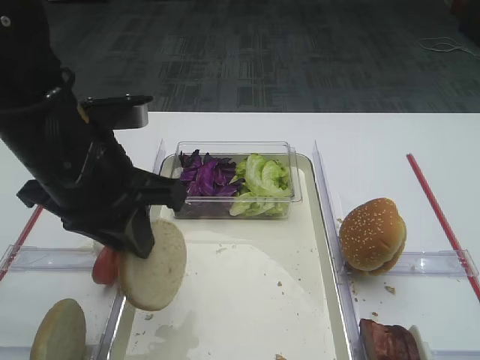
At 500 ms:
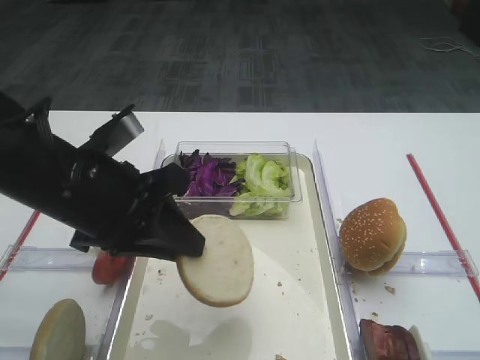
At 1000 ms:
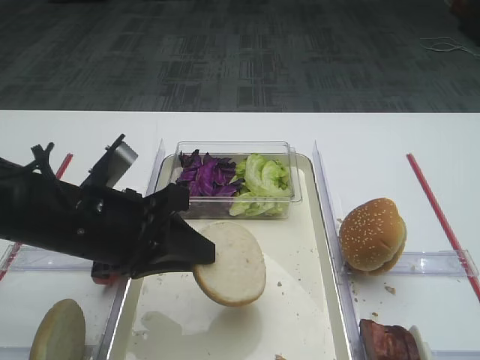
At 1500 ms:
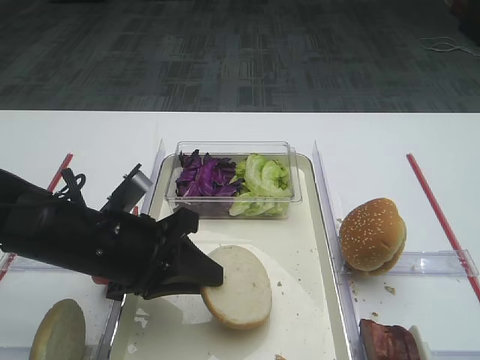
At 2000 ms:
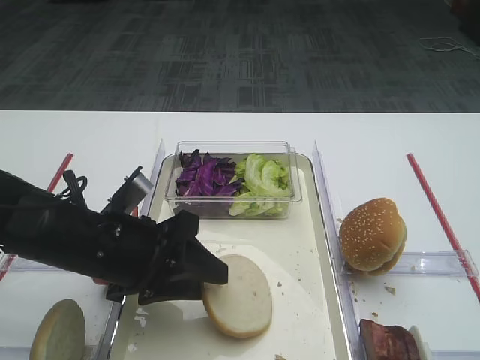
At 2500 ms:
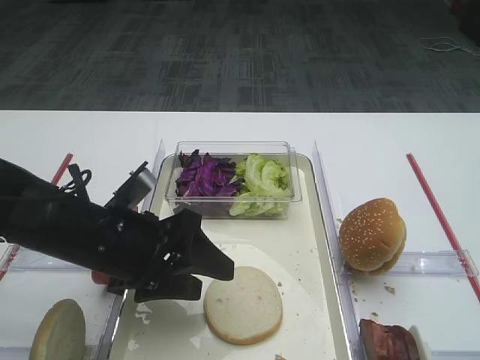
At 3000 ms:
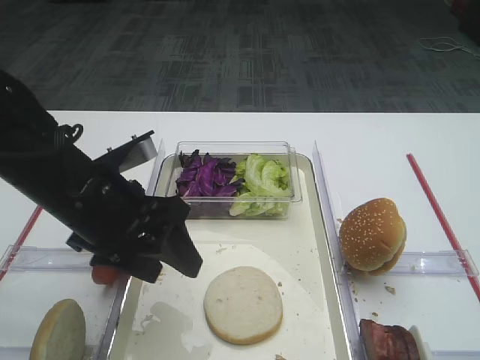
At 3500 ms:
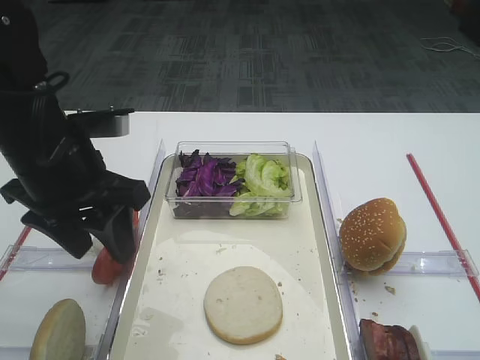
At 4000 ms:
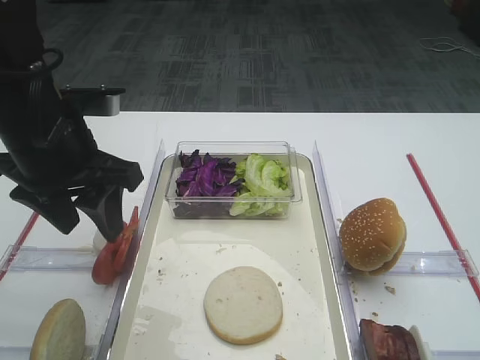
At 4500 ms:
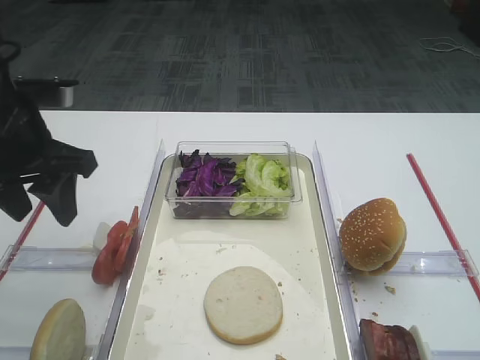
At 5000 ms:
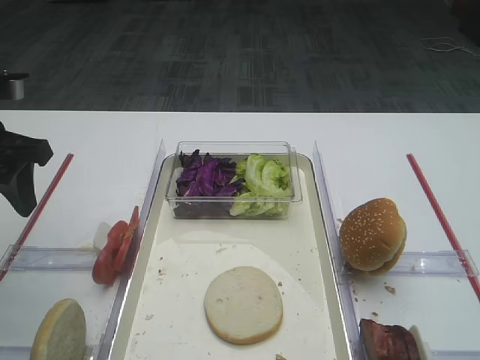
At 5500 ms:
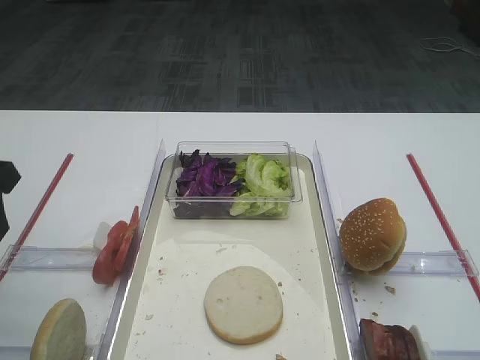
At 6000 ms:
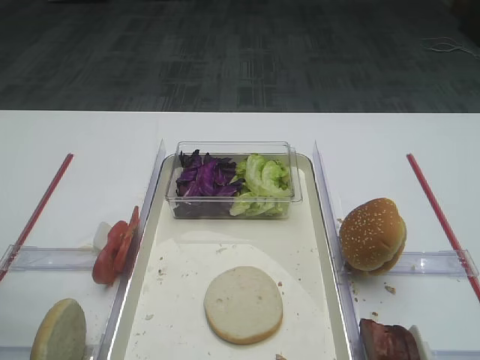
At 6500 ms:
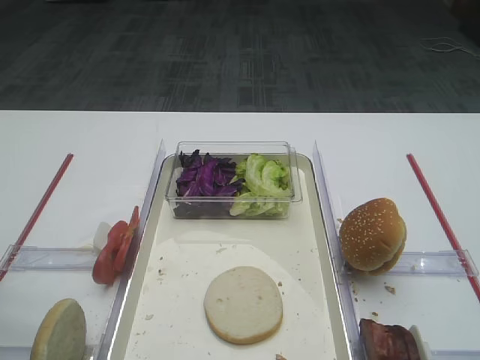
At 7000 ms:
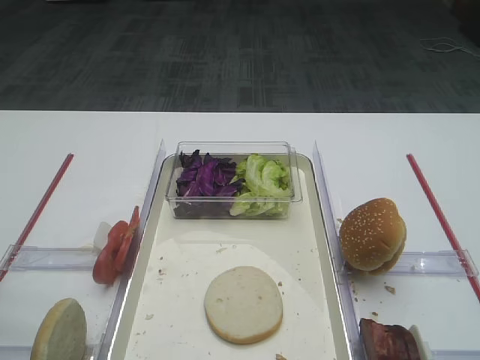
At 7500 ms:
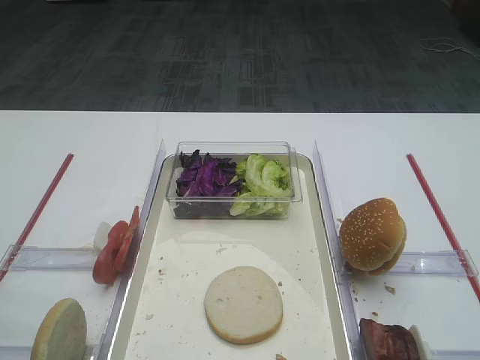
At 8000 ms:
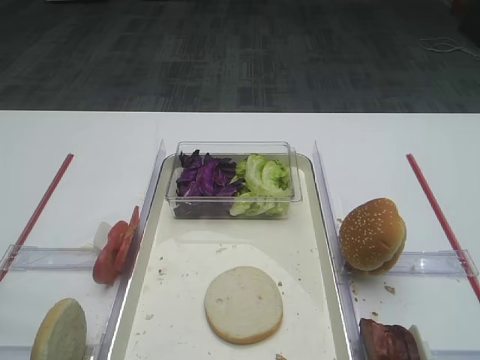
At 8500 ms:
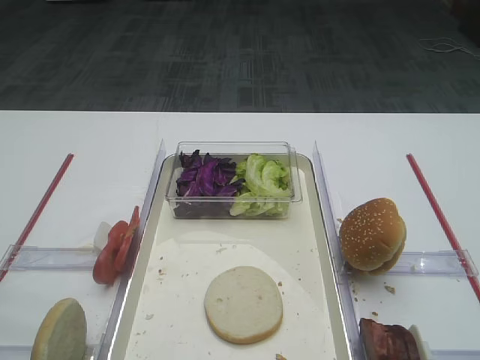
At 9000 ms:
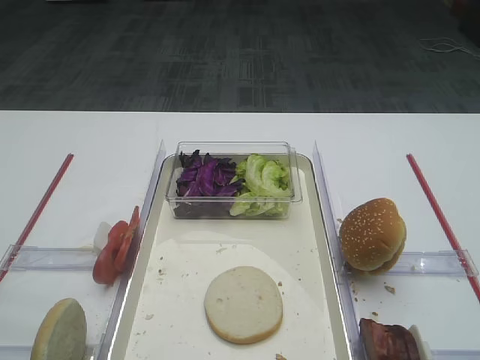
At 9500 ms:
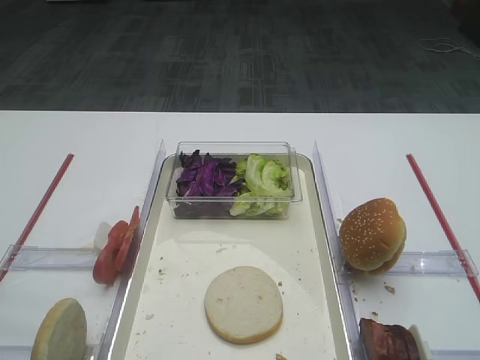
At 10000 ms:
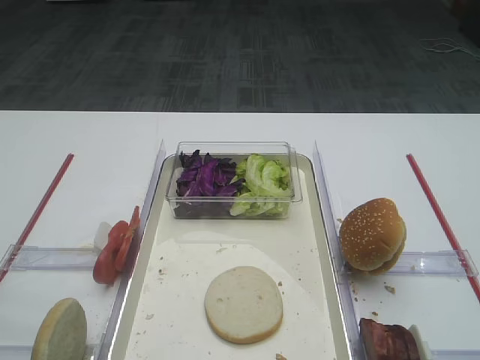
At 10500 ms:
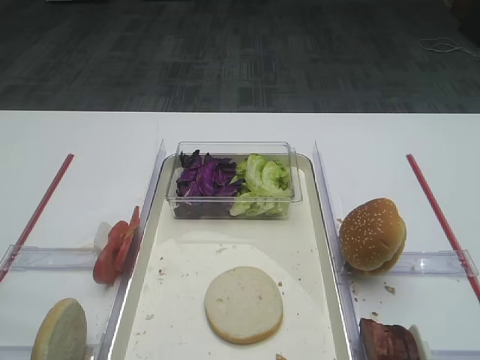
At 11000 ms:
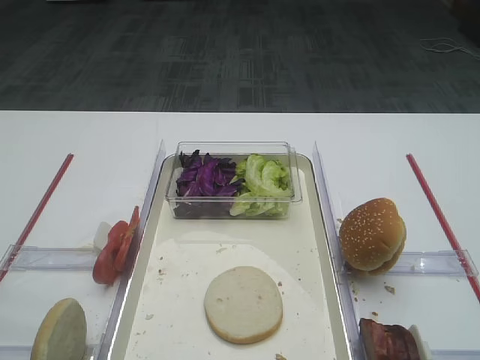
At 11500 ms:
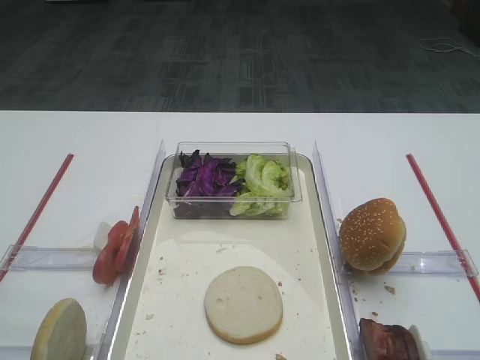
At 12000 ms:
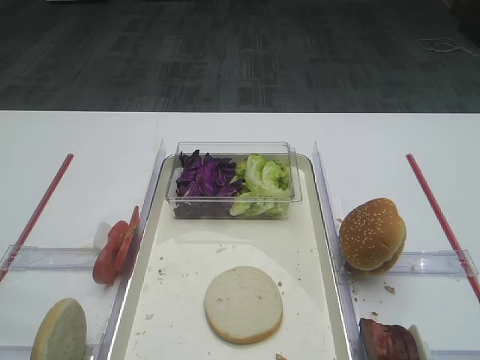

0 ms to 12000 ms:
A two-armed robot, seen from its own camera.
Step, 0 ms to 3000 ms: Place the bread slice on the tray with the left gripper.
0 ms to 2000 ms: The left gripper moves downward, some 10 cm, and opens its fingers.
2000 ms to 4000 ms: The left gripper heads upward, covering about 10 cm.
4000 ms to 6000 ms: The left gripper moves to the left and backward, about 15 cm.
10000 ms to 12000 ms: Both grippers stay put.

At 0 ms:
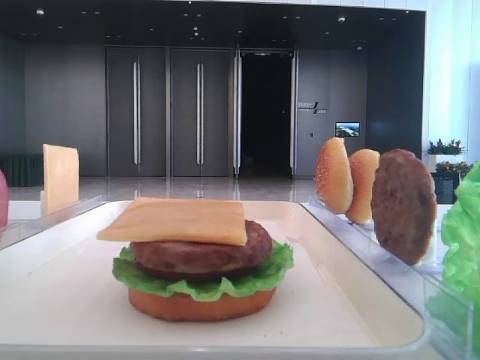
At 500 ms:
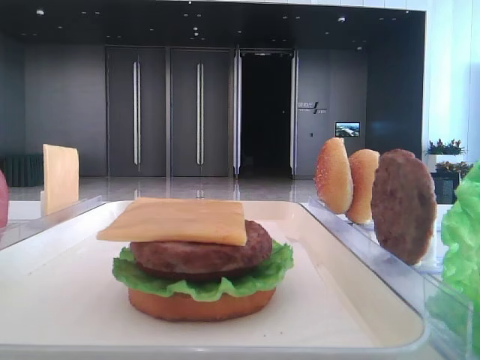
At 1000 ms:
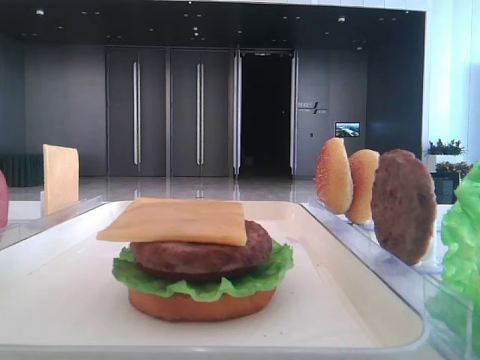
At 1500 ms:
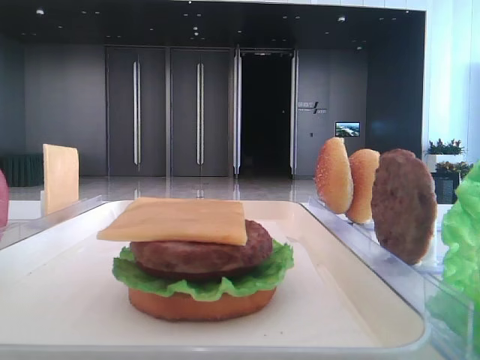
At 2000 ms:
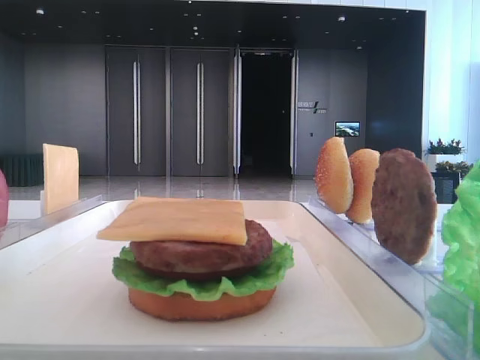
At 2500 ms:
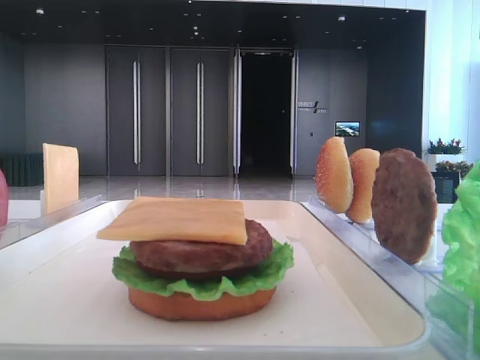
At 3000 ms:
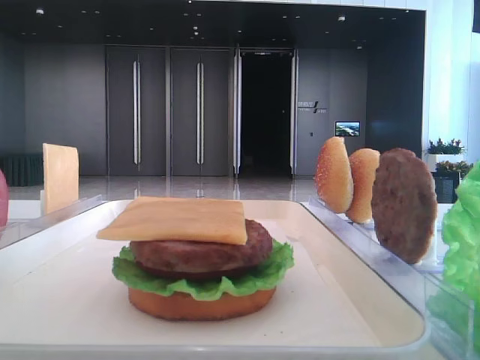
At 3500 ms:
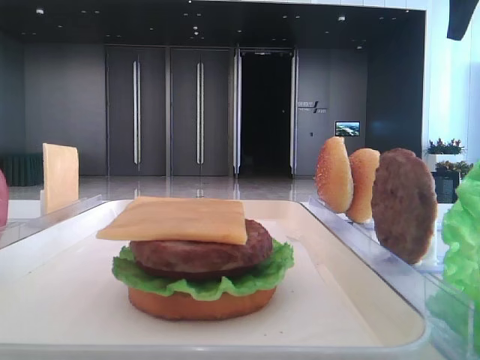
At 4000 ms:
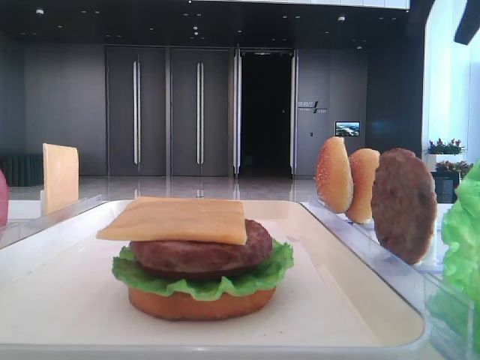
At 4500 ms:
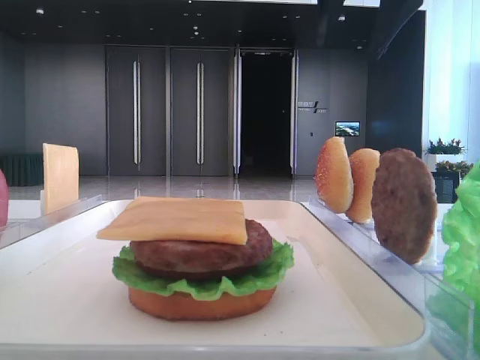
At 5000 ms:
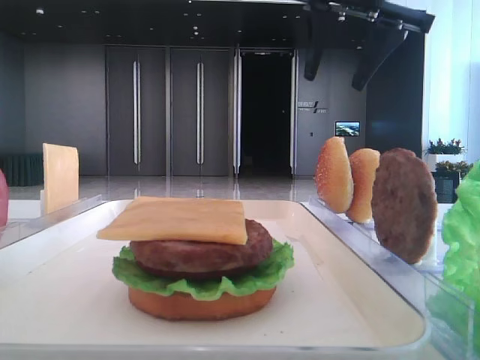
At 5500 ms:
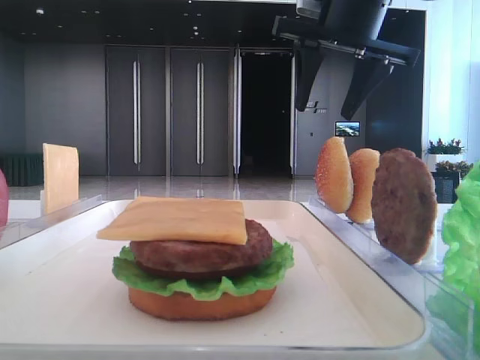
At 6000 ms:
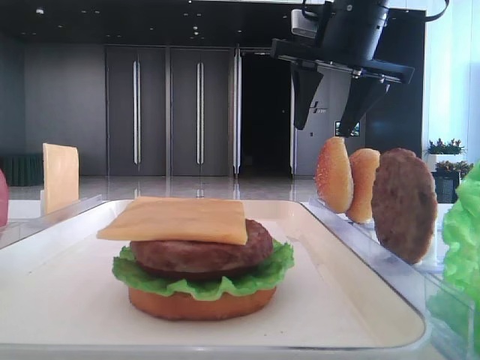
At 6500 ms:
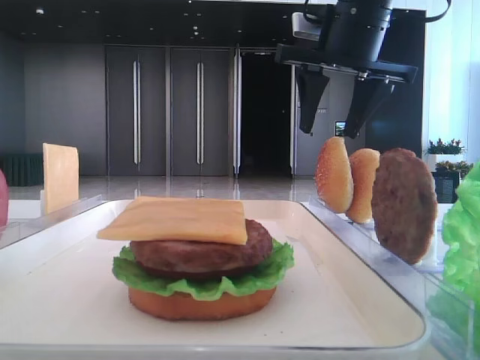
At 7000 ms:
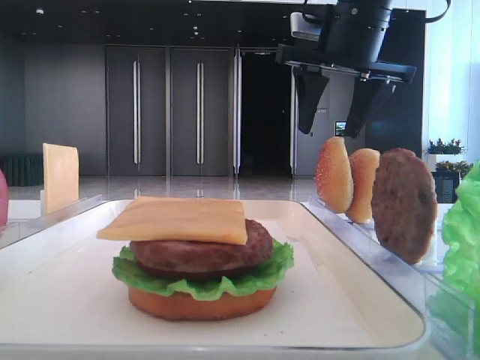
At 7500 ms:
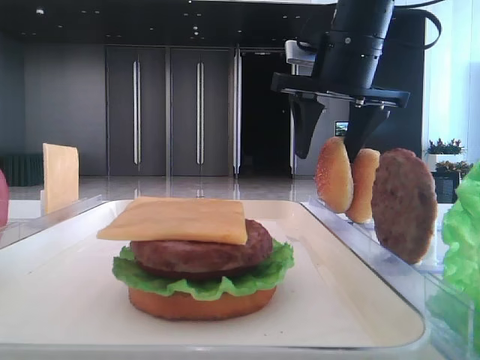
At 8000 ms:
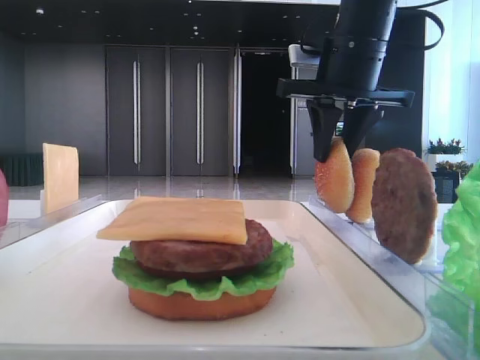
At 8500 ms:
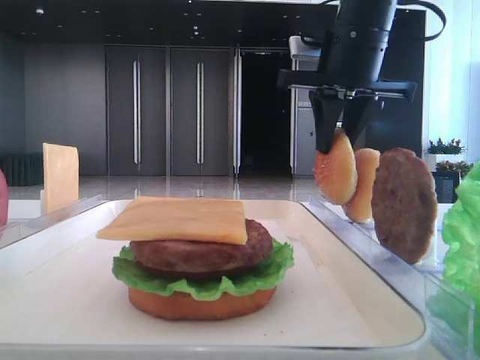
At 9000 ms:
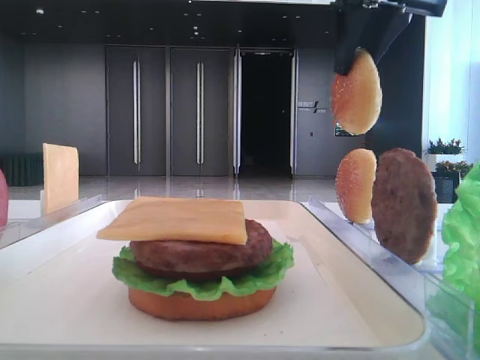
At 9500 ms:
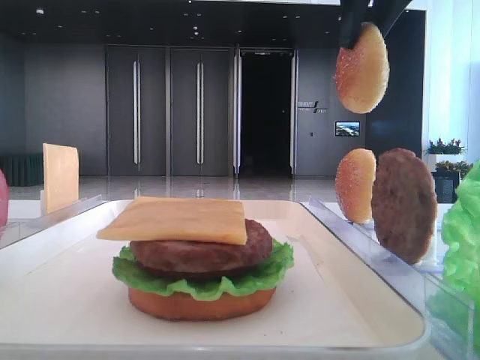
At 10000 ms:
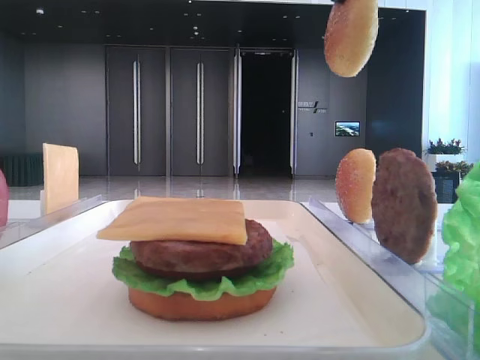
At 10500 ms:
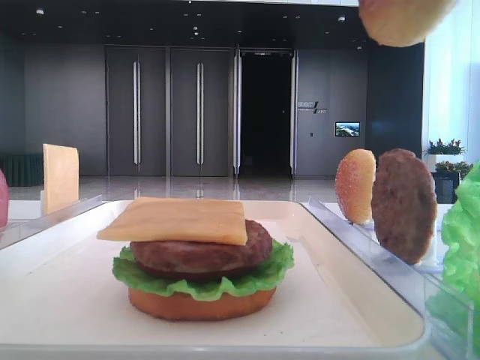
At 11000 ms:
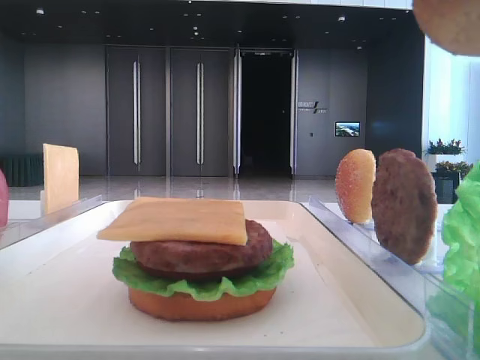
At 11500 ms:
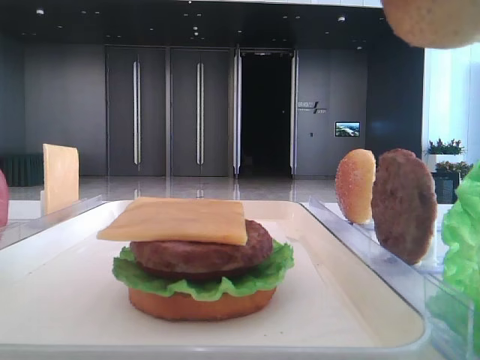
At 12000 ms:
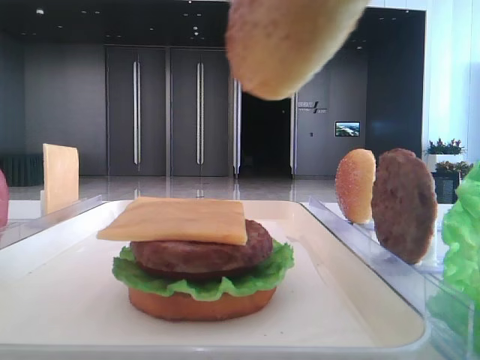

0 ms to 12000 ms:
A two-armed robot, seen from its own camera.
Step, 0 ms to 8000 ms: Pick up the top bread slice with the right hand.
2000 ms to 4000 ms: The right gripper shifts approximately 15 cm forward and to the left.
4000 ms to 6000 ms: The right gripper heads to the left and downward, covering roughly 15 cm.
6000 ms to 8000 ms: The right gripper closes its fingers.
8000 ms to 10000 ms: The right gripper travels upward and backward by some 20 cm.
10000 ms to 12000 ms: The right gripper heads backward, covering roughly 20 cm.

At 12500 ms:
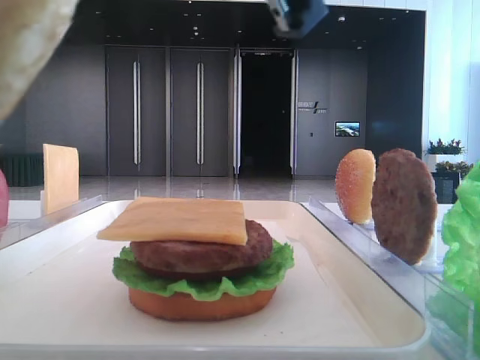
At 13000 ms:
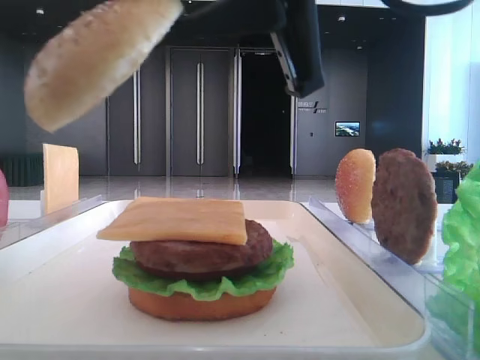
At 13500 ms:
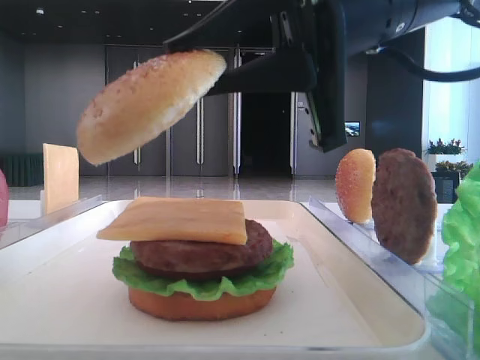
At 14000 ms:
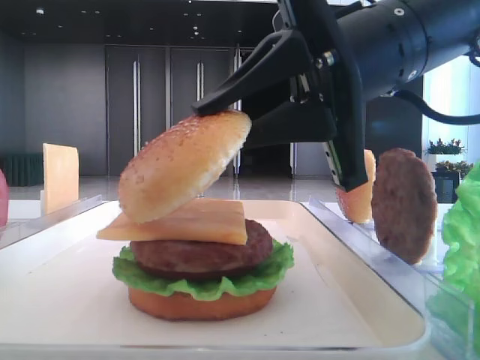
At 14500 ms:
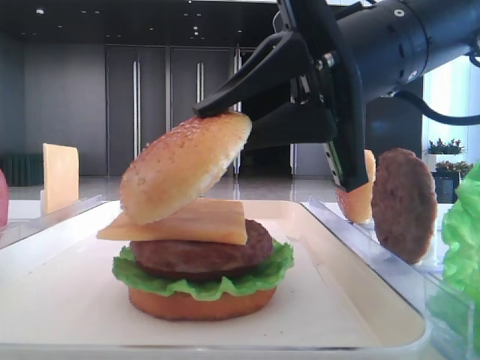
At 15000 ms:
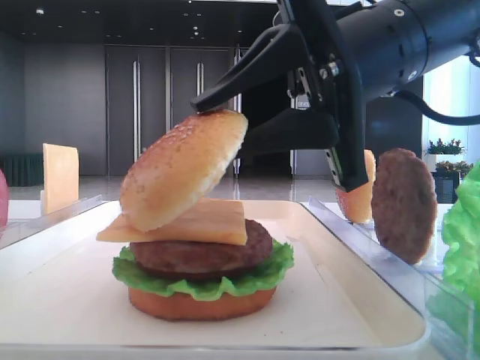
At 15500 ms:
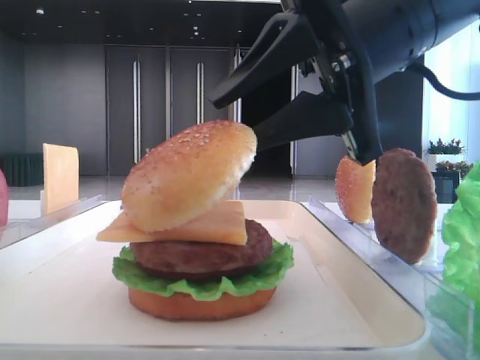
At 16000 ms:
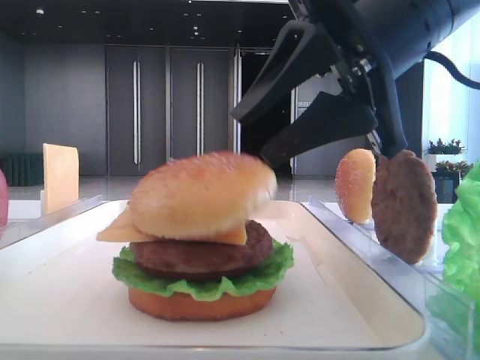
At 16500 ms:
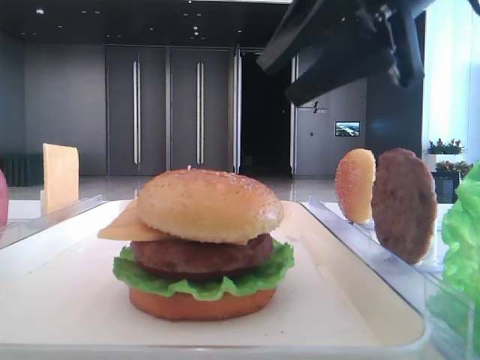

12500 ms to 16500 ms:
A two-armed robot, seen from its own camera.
Step, 12500 ms to 15500 ms: Place the top bread slice on the cheese with the right hand.
12500 ms to 14500 ms: The right gripper is displaced forward, downward and to the right by roughly 15 cm.
14500 ms to 16500 ms: The right gripper travels upward by roughly 5 cm, and opens up.
